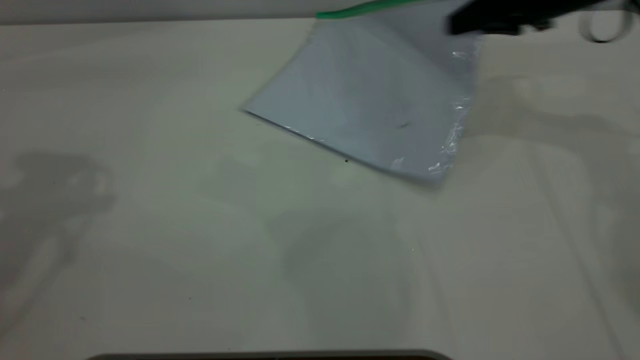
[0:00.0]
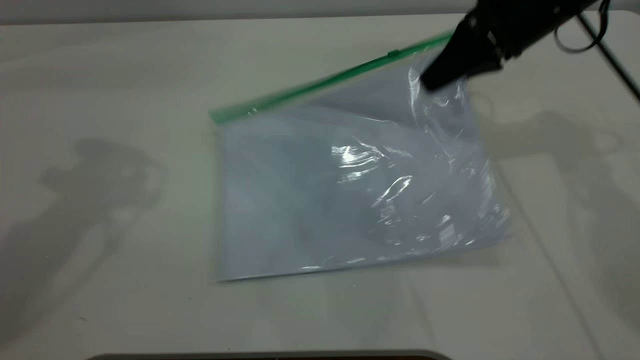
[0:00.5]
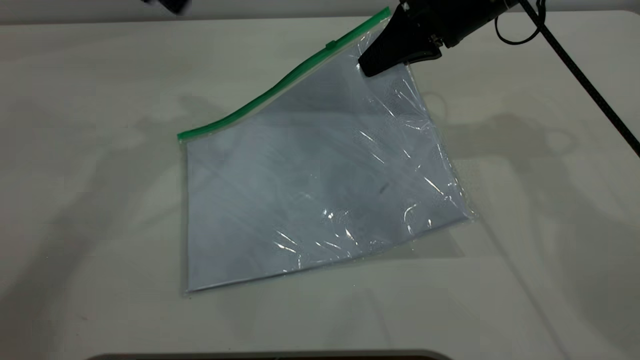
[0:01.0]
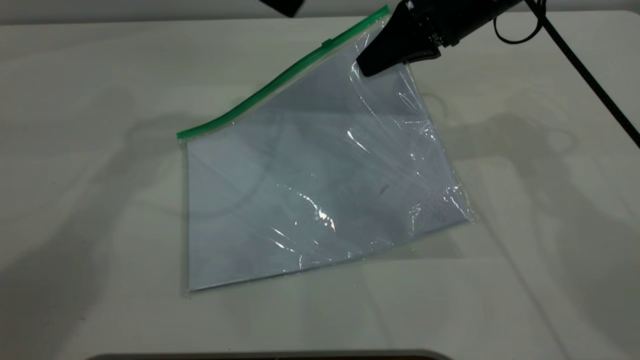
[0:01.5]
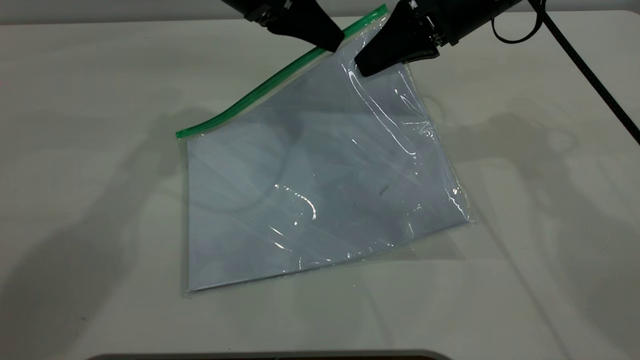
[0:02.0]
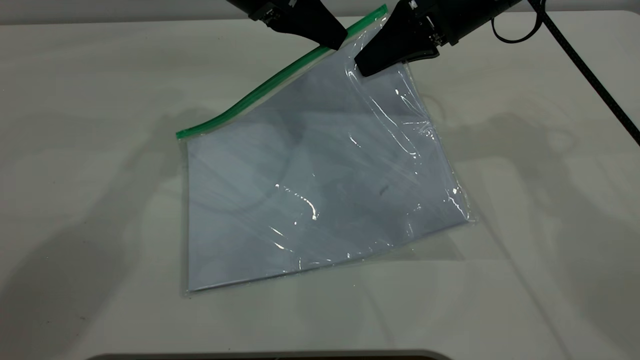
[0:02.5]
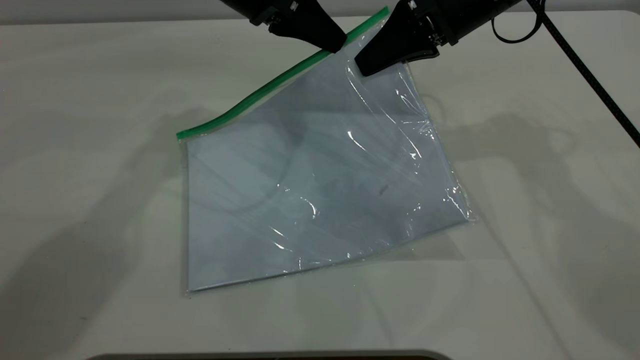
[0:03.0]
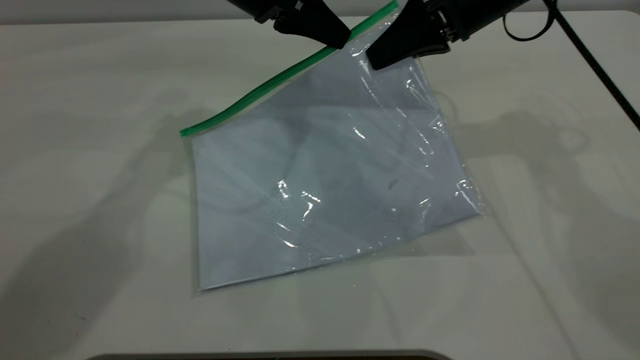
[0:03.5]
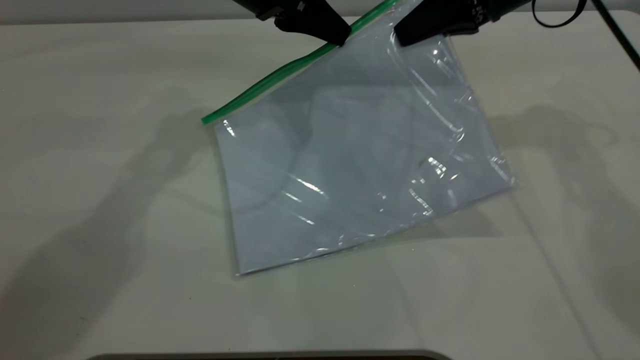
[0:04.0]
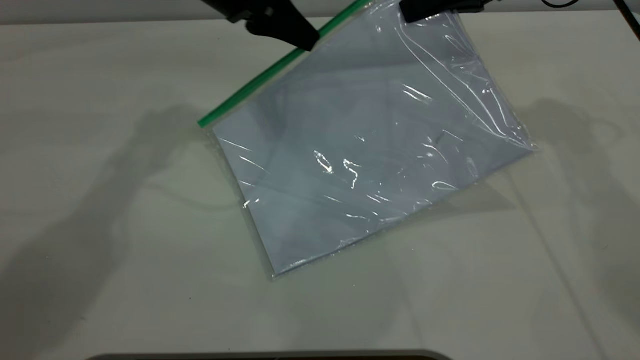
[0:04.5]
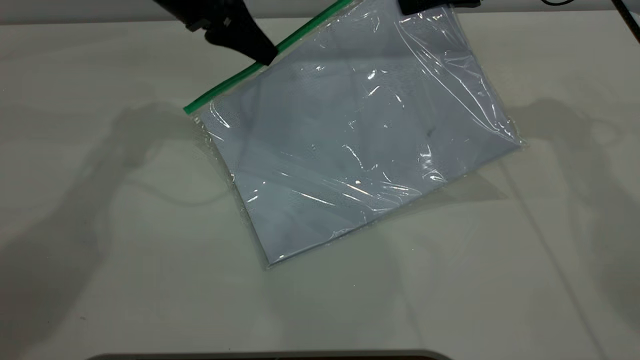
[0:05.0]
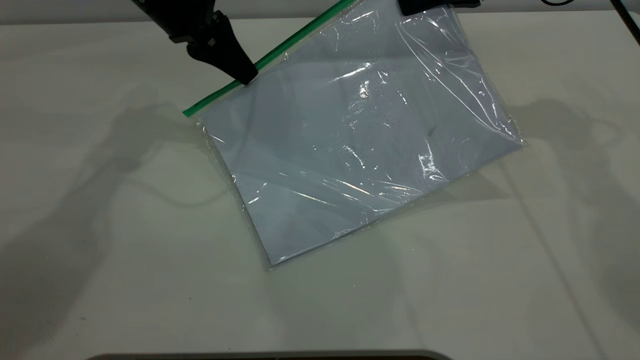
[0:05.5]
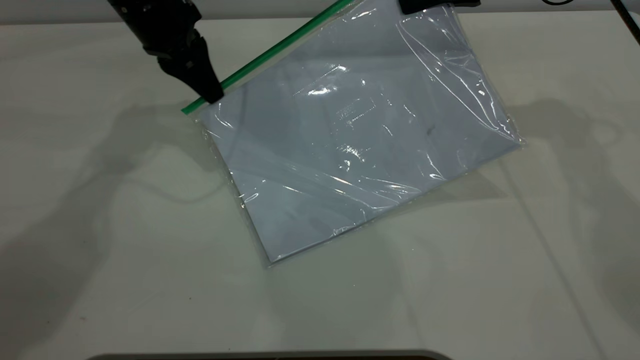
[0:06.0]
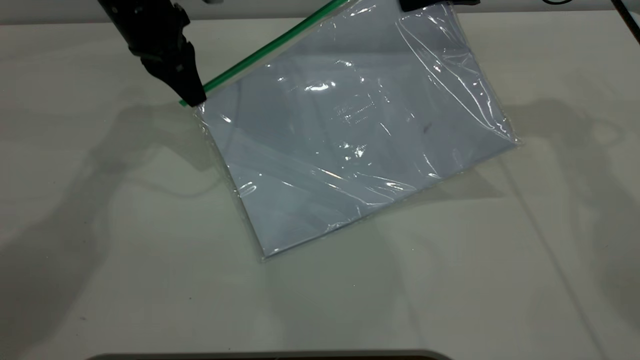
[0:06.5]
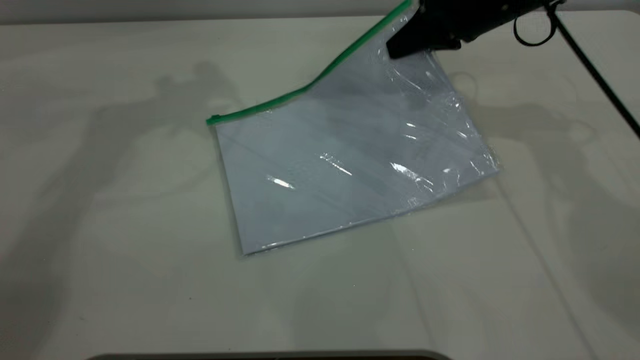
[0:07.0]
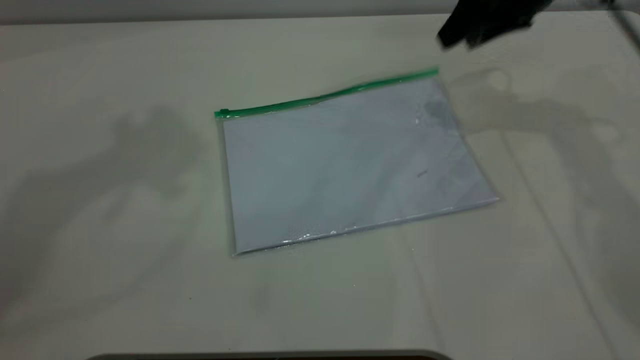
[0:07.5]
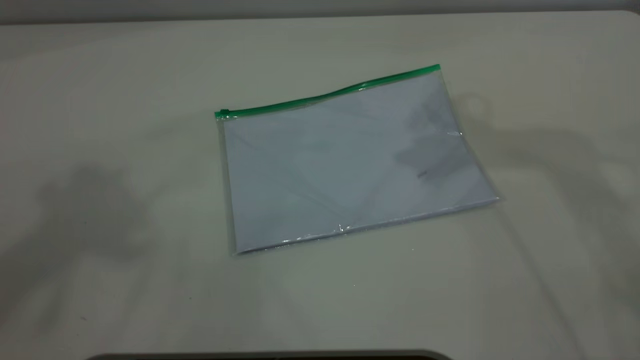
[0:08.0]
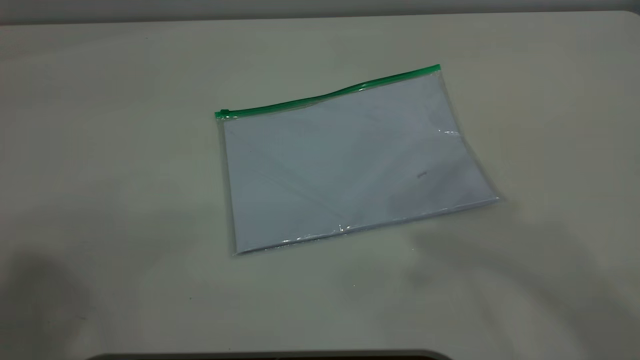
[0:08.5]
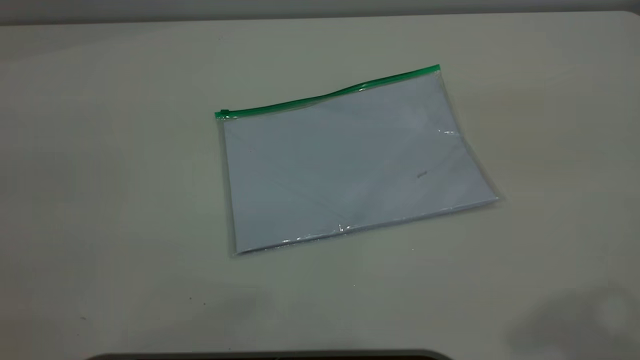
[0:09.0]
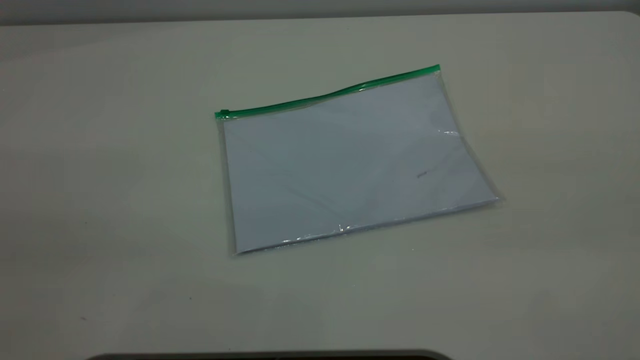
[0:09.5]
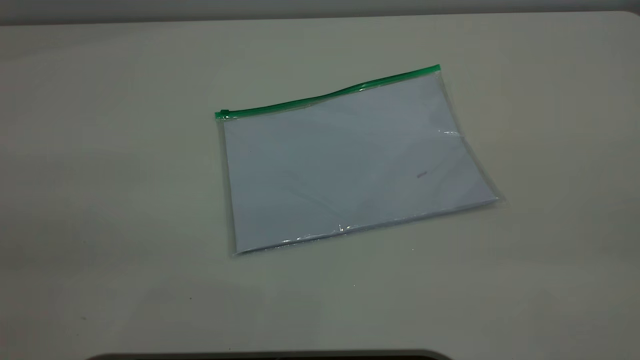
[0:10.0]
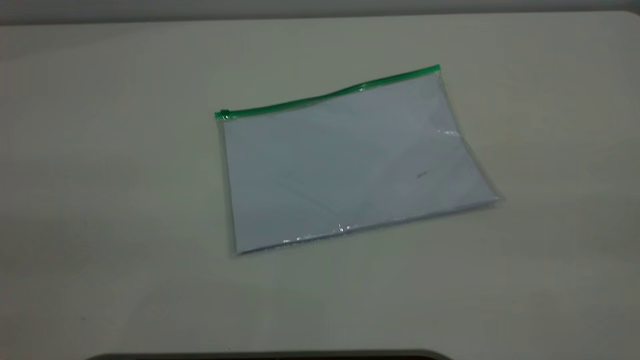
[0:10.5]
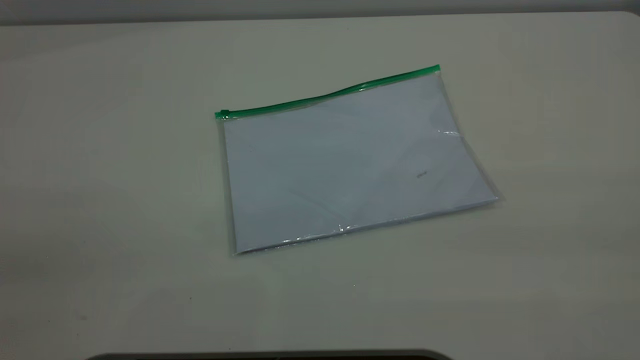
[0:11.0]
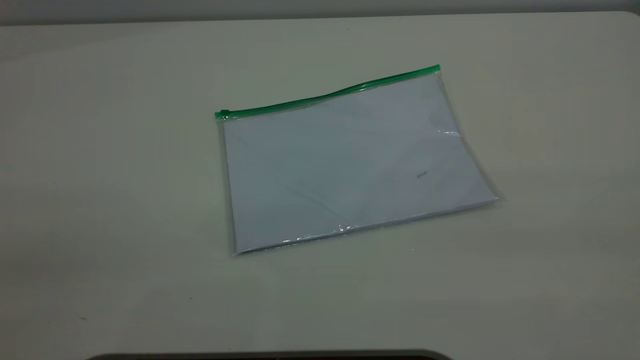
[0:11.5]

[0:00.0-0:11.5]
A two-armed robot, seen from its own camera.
Step, 0:01.5 to 0:06.5: Pulling up the zipper on the transparent plastic bag with the left gripper to close it.
Step, 0:07.0 to 0:07.5: Place the transparent plastic bag.
0:00.0 to 0:02.0: The right gripper shifts roughly 10 cm to the left. The left gripper moves to the right, downward and forward, approximately 30 cm.
0:02.0 to 0:04.0: The right gripper ends up approximately 5 cm from where it was. The left gripper closes its fingers.
0:04.0 to 0:06.0: The left gripper goes roughly 10 cm to the left.
0:06.0 to 0:07.5: The right gripper opens up; the left gripper is displaced upward by roughly 35 cm, and opens up.
0:07.5 to 0:09.5: The right gripper is displaced backward by roughly 40 cm.
